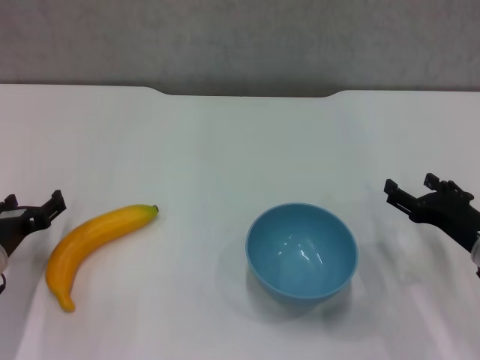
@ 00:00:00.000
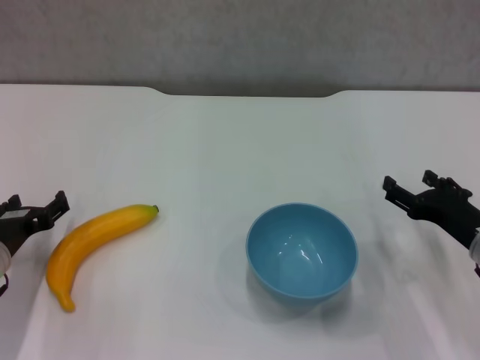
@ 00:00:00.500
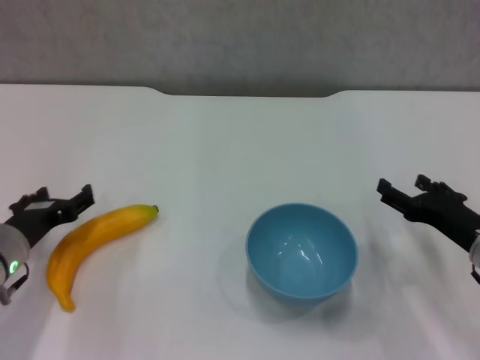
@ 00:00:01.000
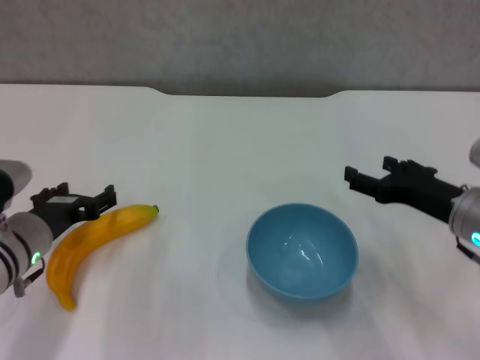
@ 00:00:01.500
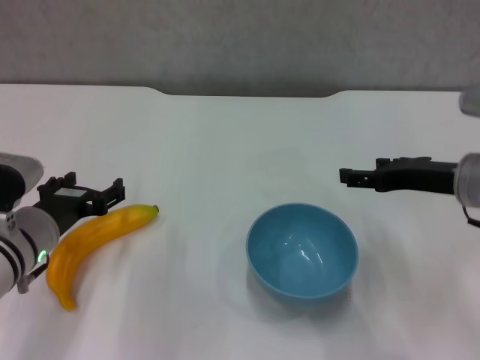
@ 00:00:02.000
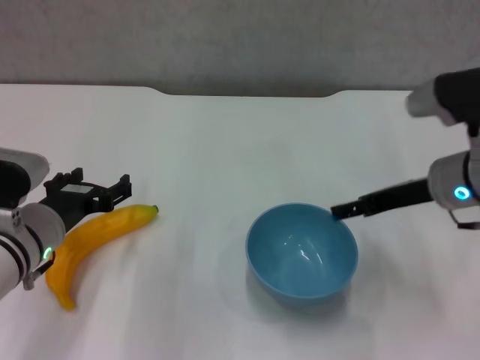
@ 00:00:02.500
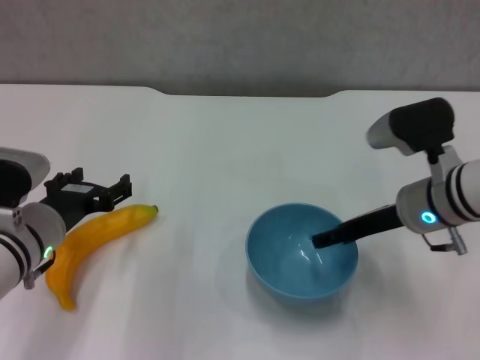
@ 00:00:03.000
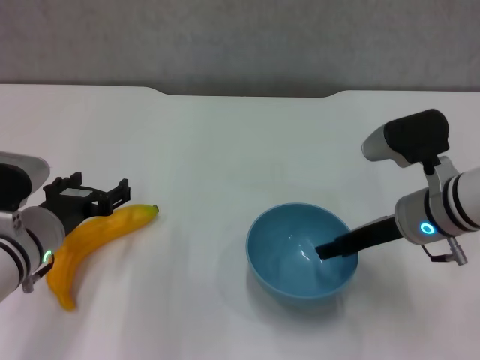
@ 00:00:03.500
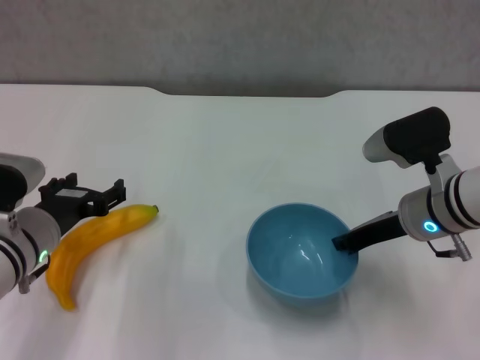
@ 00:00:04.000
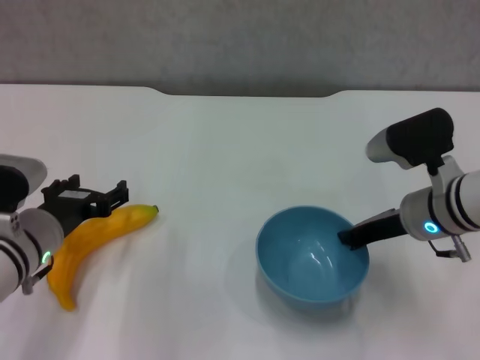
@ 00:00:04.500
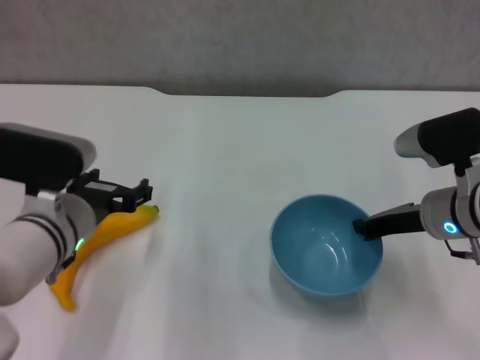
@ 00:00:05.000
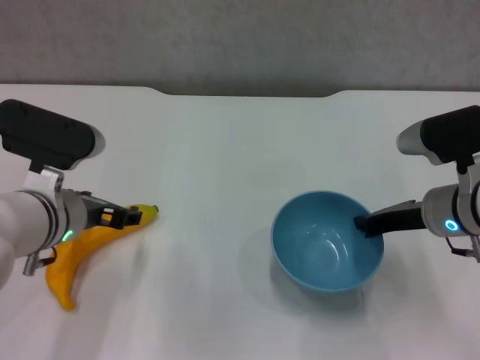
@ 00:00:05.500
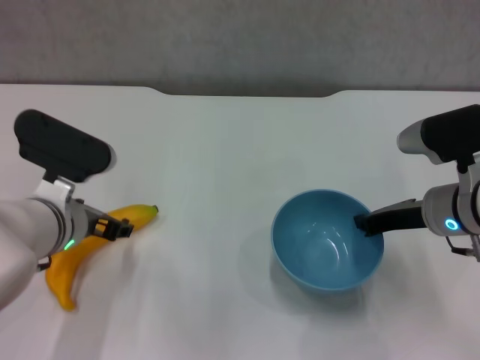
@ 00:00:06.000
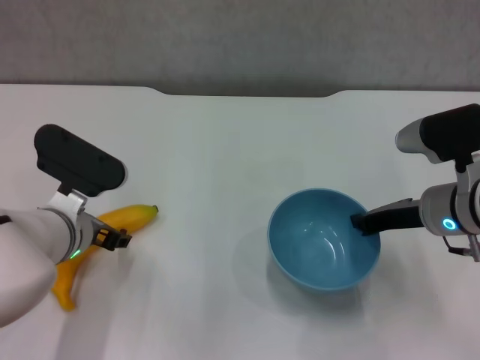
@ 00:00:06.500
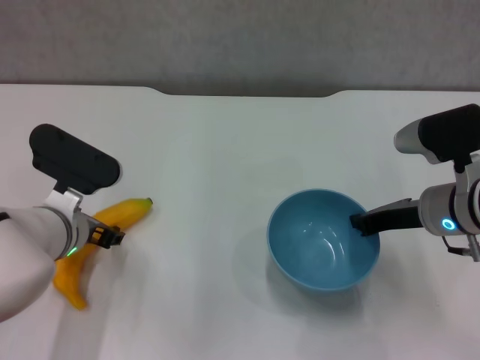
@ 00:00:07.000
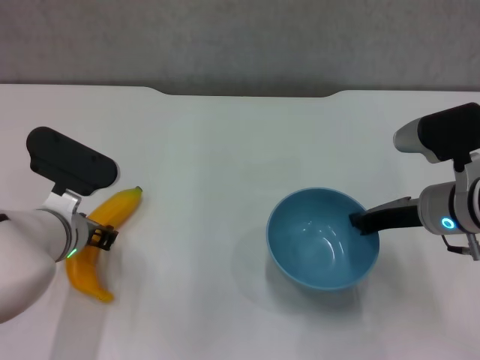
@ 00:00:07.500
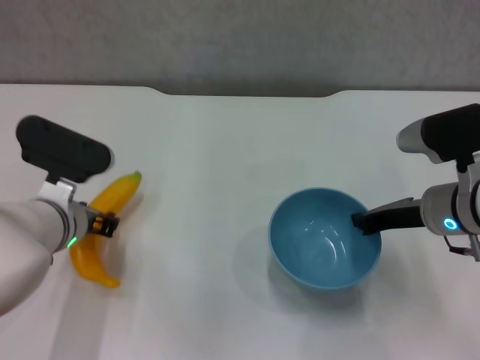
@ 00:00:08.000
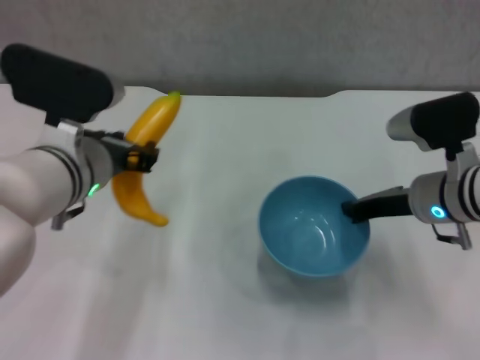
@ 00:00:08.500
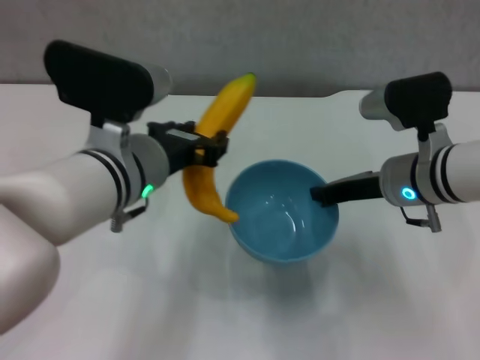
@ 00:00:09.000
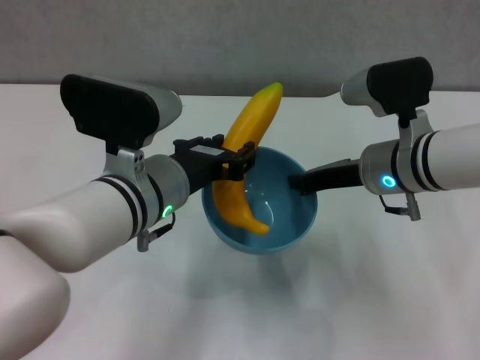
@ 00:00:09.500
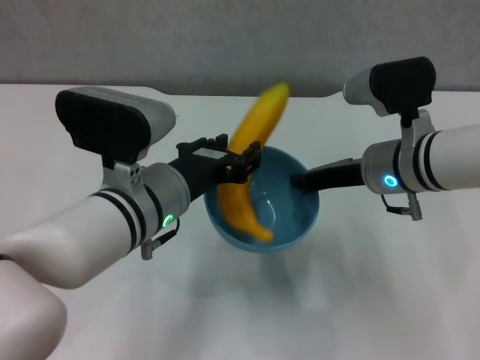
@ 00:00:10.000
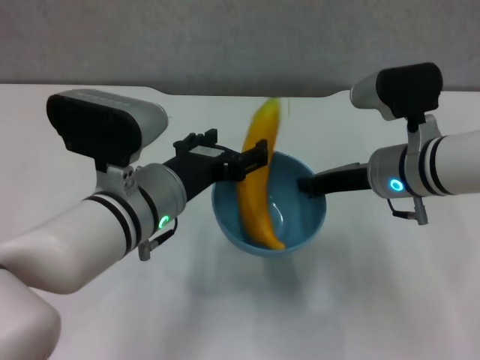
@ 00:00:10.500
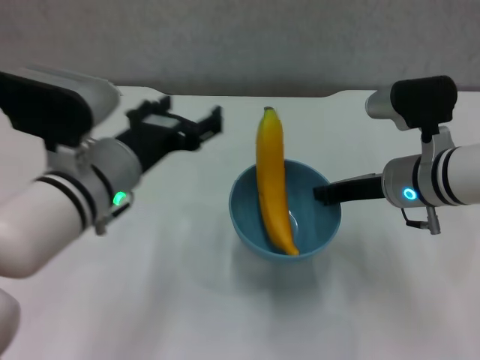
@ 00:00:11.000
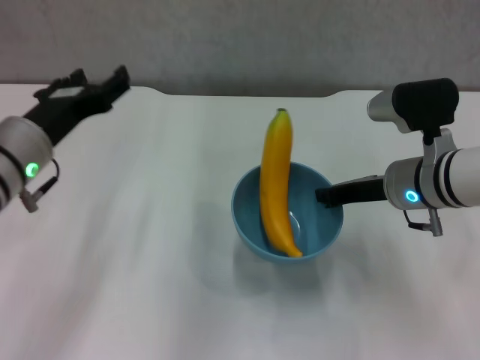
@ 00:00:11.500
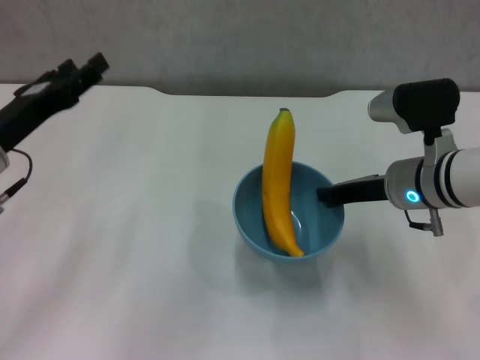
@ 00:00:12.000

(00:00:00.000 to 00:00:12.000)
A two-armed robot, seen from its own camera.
Step, 00:00:00.000 - 00:00:04.000: Grasp the blue bowl with right gripper.
Step, 00:00:05.000 - 00:00:07.500: Grasp the banana with left gripper.
Step, 00:00:08.000 - 00:00:10.000: Place the banana in the blue bowl with left gripper.
00:00:00.000 - 00:00:02.000: The left gripper travels to the right by roughly 5 cm. Meanwhile the right gripper is displaced upward by some 10 cm.
00:00:02.000 - 00:00:04.000: The right gripper moves about 5 cm, and closes.
00:00:04.000 - 00:00:06.000: The left gripper changes place by approximately 5 cm. The right gripper closes.
00:00:06.000 - 00:00:08.000: The left gripper closes its fingers.
00:00:08.000 - 00:00:10.000: The left gripper is displaced to the right and upward by approximately 10 cm; the right gripper shifts some 5 cm to the left.
00:00:10.000 - 00:00:12.000: The left gripper travels to the left by about 15 cm, and opens its fingers.

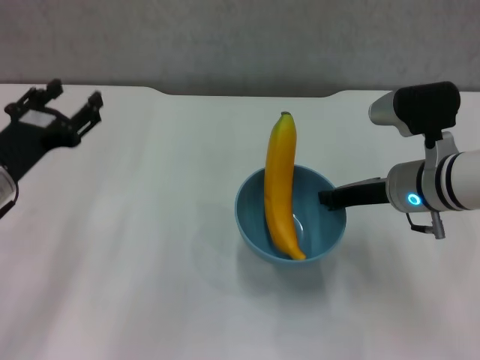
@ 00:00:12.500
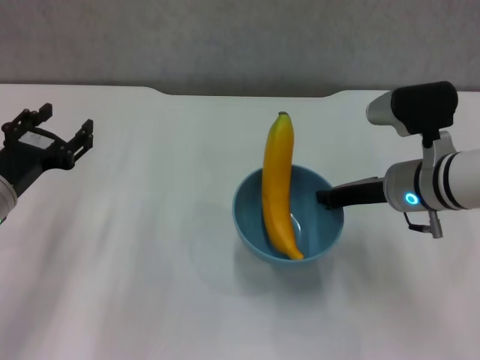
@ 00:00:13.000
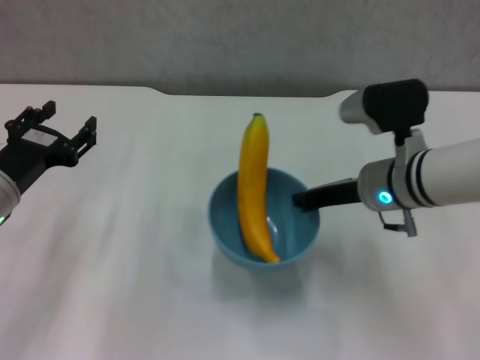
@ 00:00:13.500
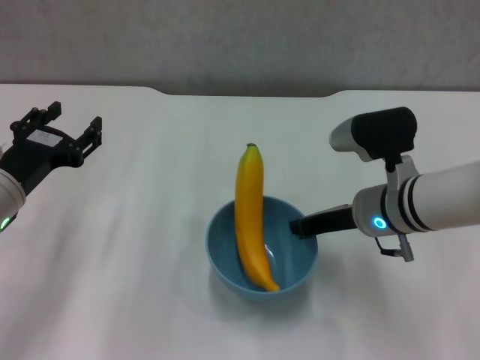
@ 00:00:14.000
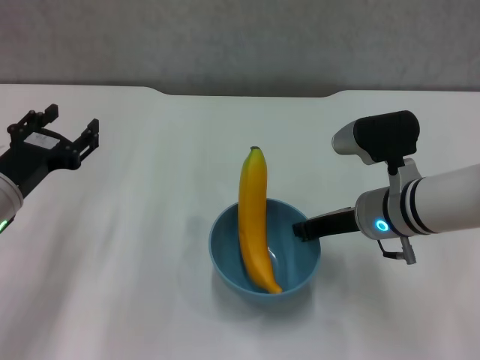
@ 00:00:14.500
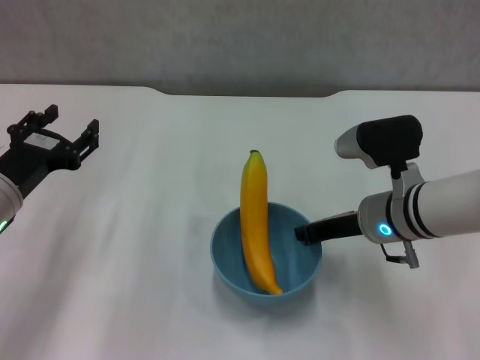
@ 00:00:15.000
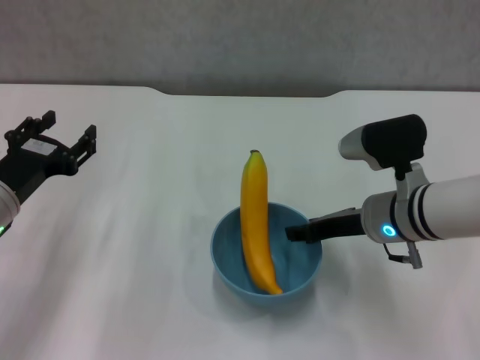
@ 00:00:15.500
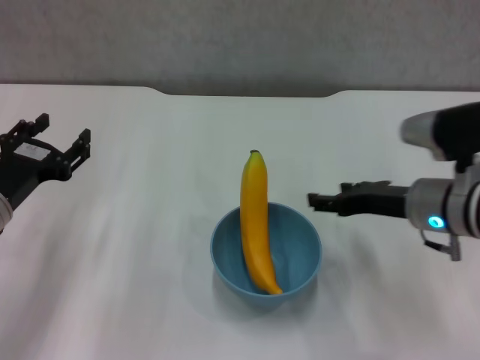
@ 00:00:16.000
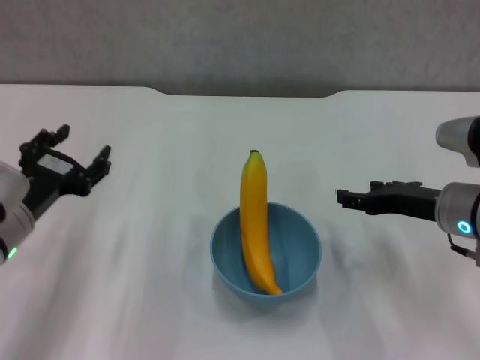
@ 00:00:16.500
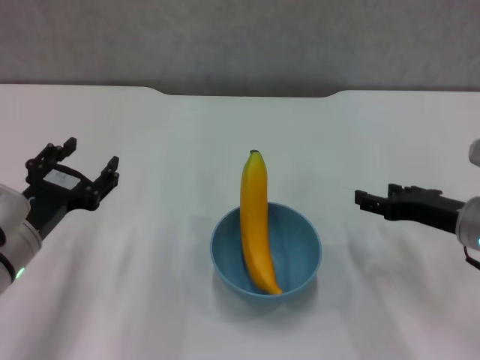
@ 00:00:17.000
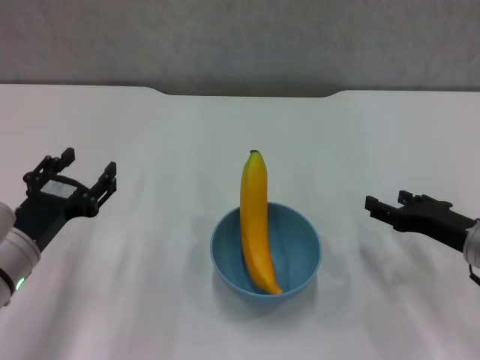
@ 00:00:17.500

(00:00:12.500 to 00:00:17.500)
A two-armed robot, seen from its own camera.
Step, 00:00:12.500 - 00:00:15.500: Place the bowl on the table with right gripper.
00:00:15.000 - 00:00:17.500: The left gripper moves backward, about 5 cm. Meanwhile the right gripper moves to the right and backward, about 10 cm, and opens its fingers.
